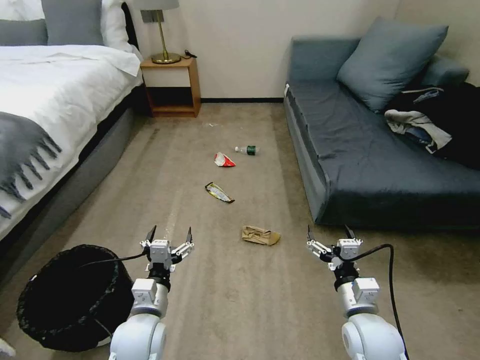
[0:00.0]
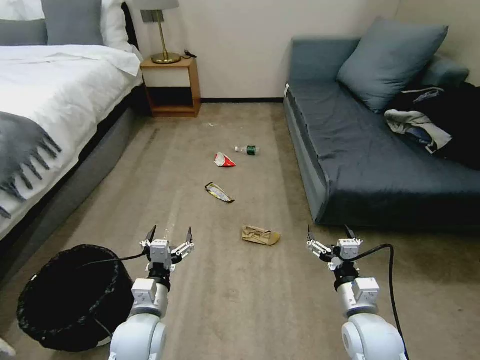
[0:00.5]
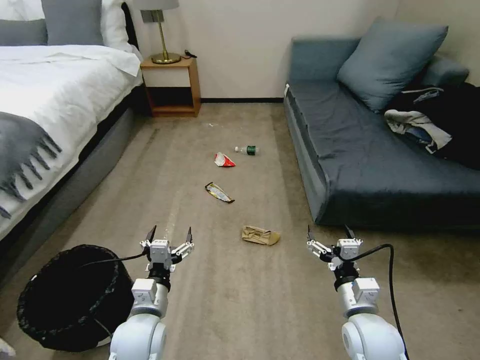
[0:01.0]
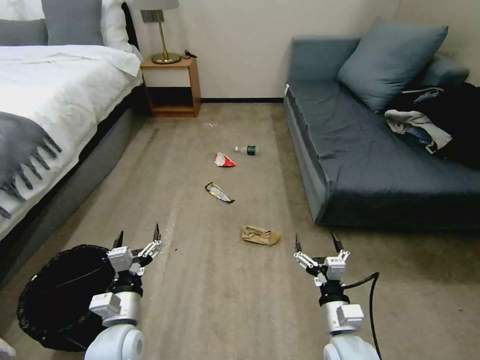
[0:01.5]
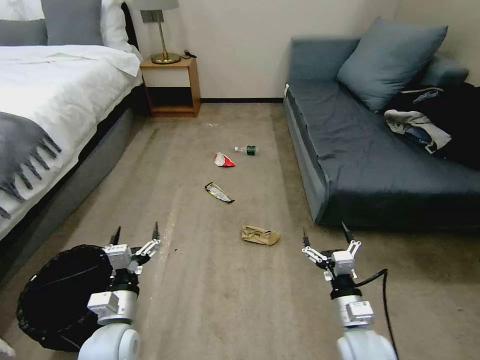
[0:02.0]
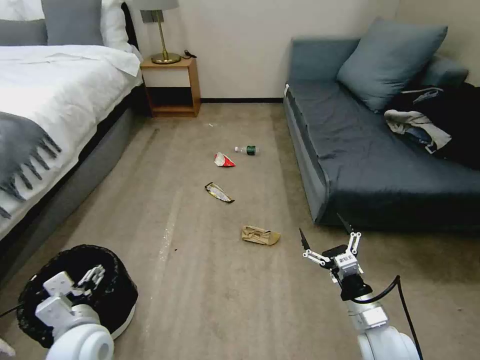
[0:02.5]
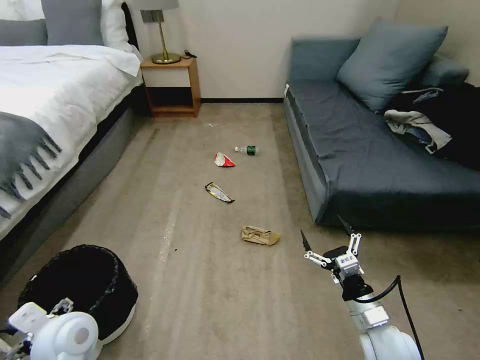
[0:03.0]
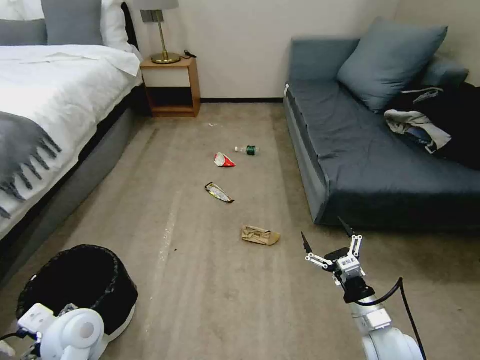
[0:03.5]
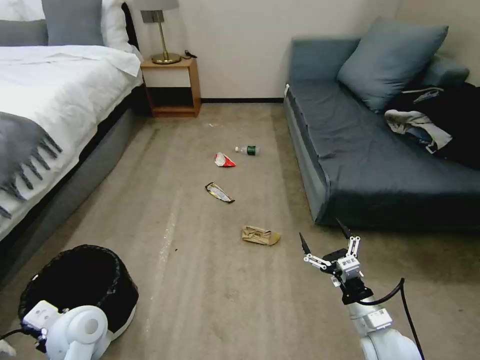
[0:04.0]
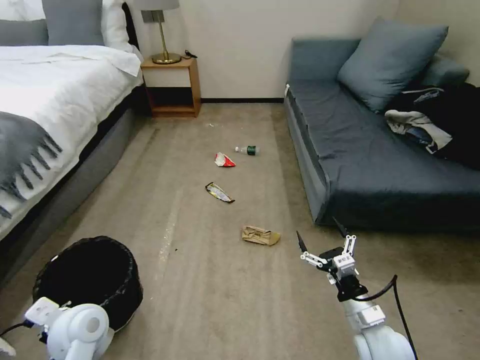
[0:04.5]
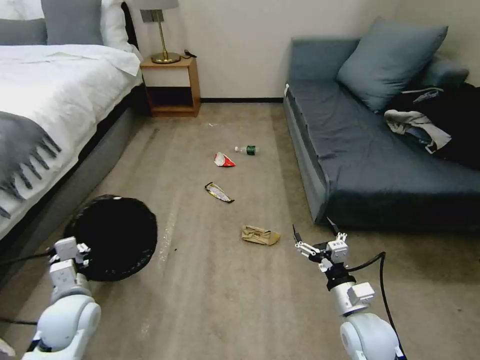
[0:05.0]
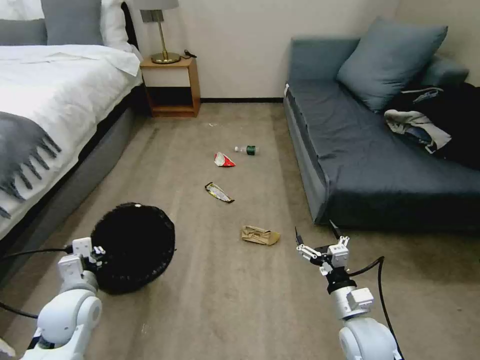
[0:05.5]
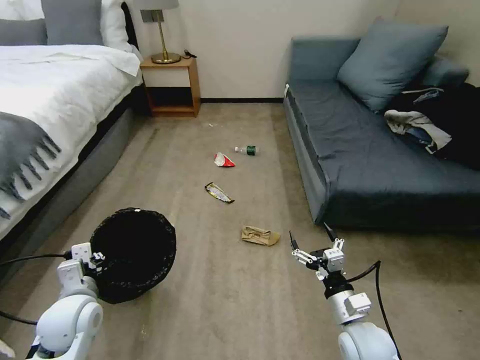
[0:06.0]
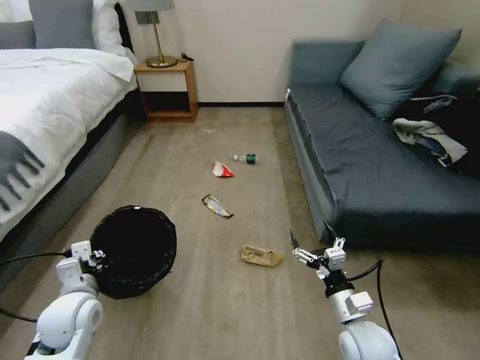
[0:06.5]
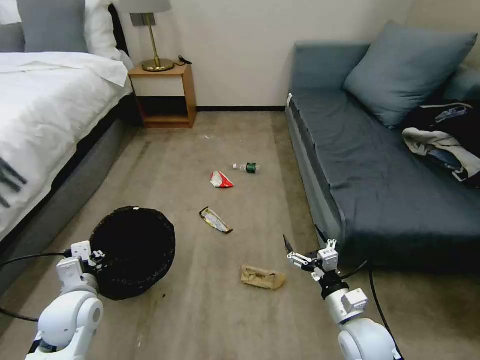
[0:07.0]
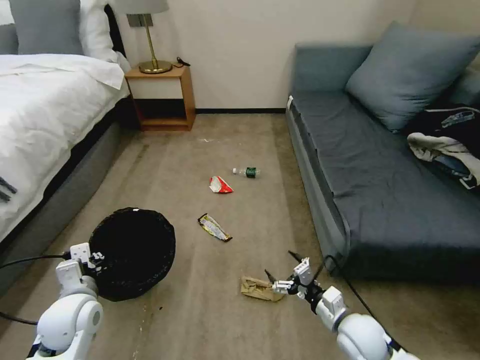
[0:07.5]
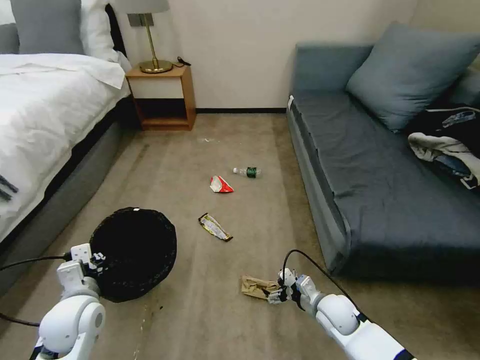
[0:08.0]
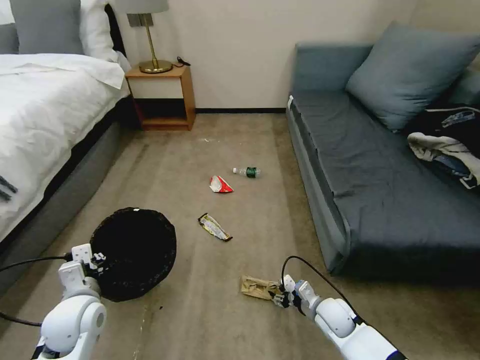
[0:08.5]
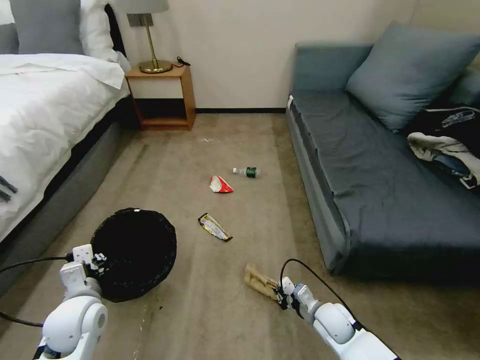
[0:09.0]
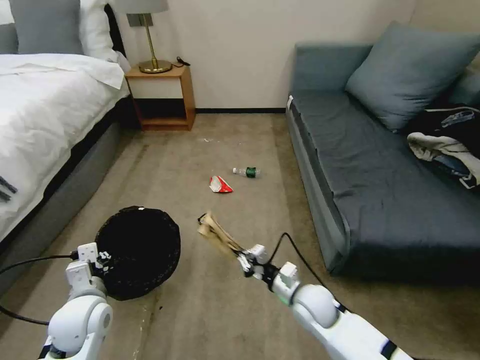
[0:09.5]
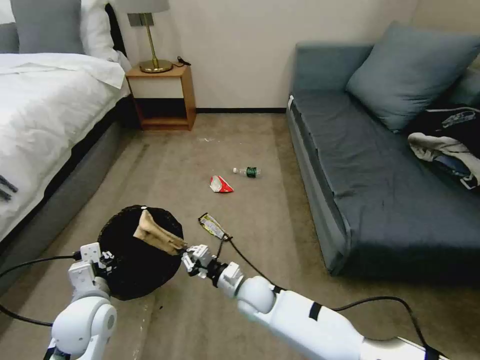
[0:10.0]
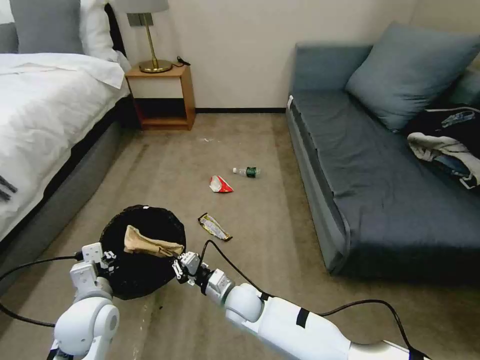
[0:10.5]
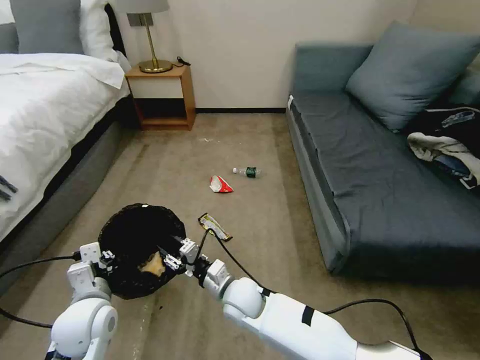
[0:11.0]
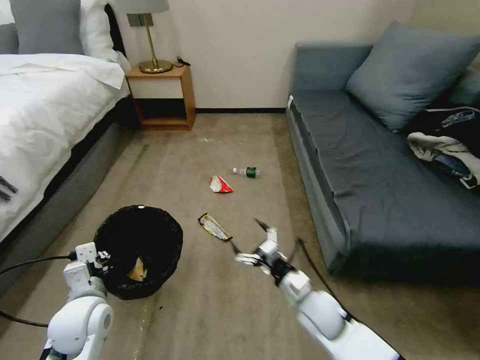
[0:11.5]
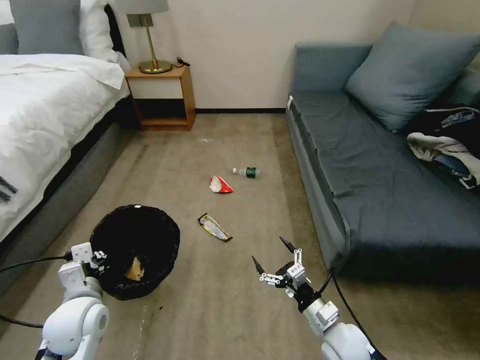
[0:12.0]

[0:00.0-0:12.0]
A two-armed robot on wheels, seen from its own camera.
Task of the whole recording: Pick up the trash bin, then pick up the garbage on the floor and place it into the trash bin.
0:02.0 to 0:04.0: The left gripper heads to the left, covering roughly 5 cm, and closes.
0:04.0 to 0:06.0: The left gripper closes its fingers.
0:06.0 to 0:08.0: The right gripper is displaced downward and forward by about 10 cm.
0:08.0 to 0:10.0: The right gripper moves to the left, roughly 20 cm, and closes its fingers.
0:10.0 to 0:12.0: The right gripper heads to the right and backward, covering approximately 20 cm, and opens its fingers.

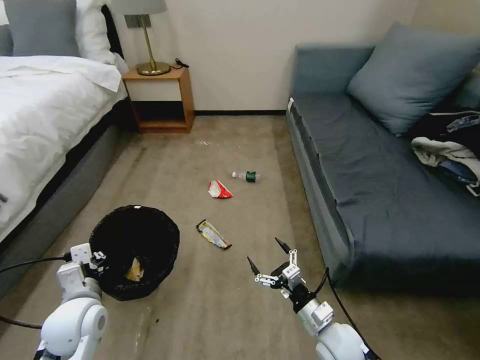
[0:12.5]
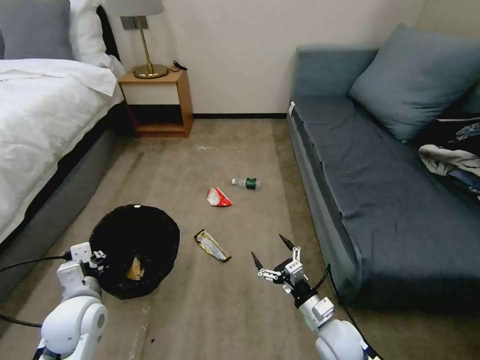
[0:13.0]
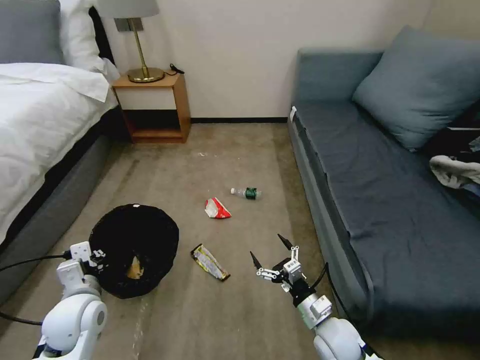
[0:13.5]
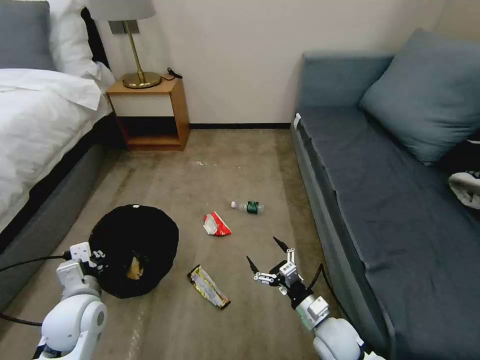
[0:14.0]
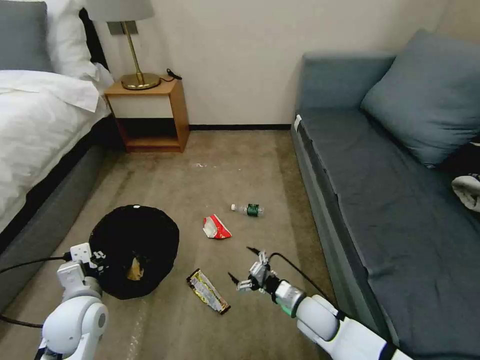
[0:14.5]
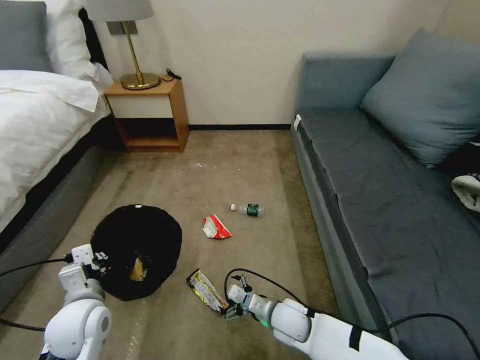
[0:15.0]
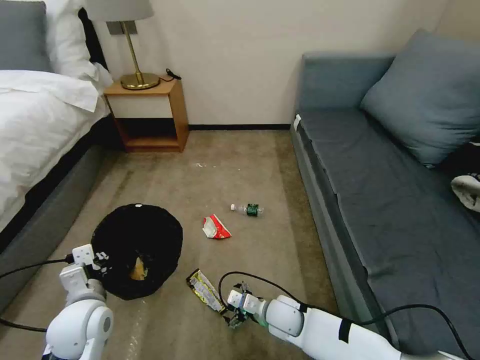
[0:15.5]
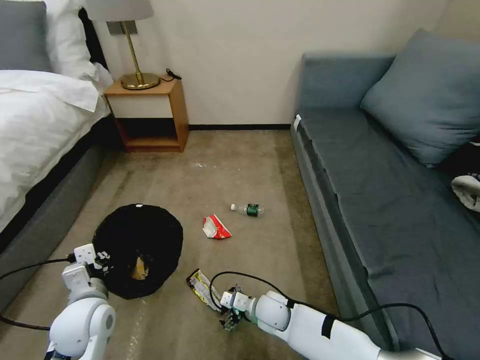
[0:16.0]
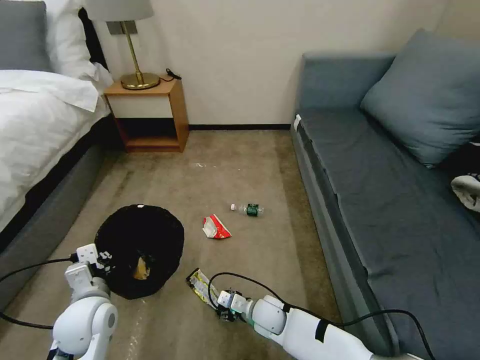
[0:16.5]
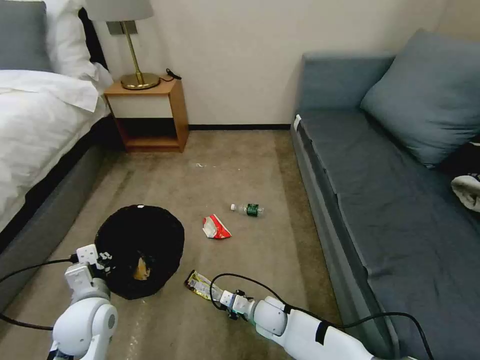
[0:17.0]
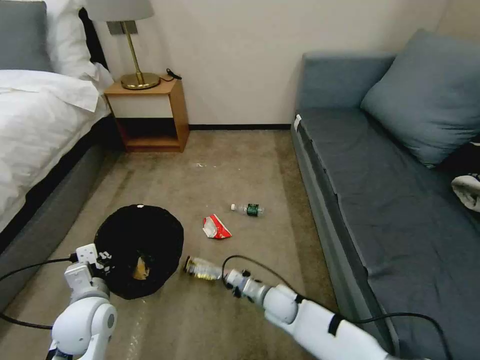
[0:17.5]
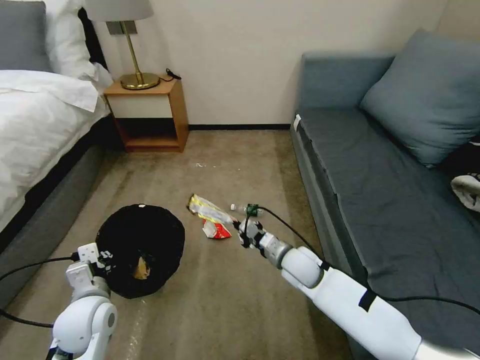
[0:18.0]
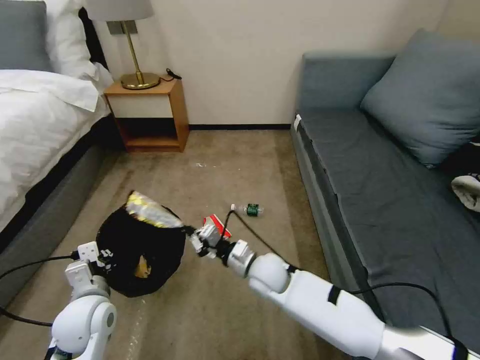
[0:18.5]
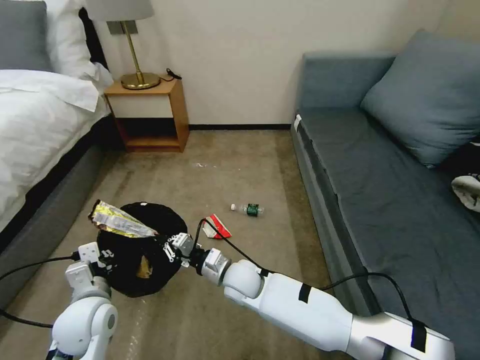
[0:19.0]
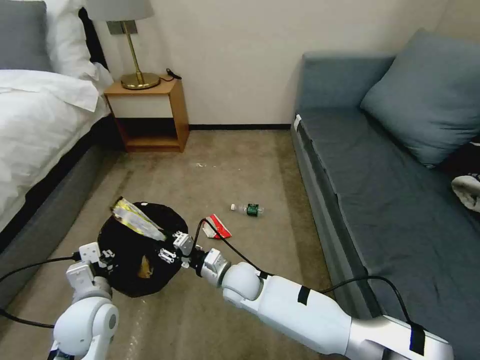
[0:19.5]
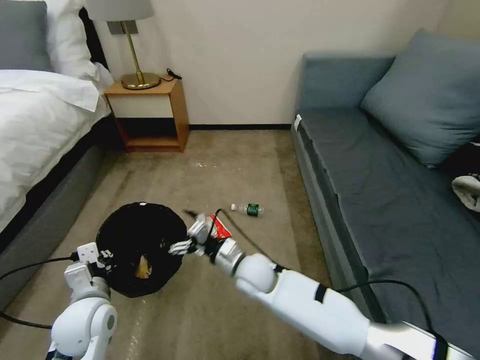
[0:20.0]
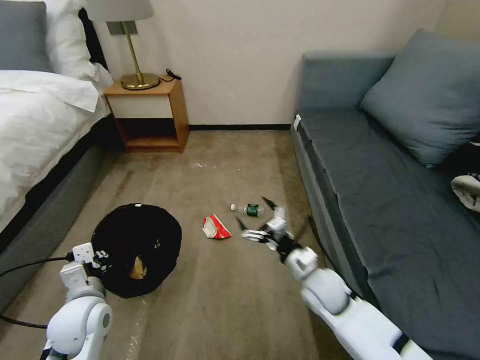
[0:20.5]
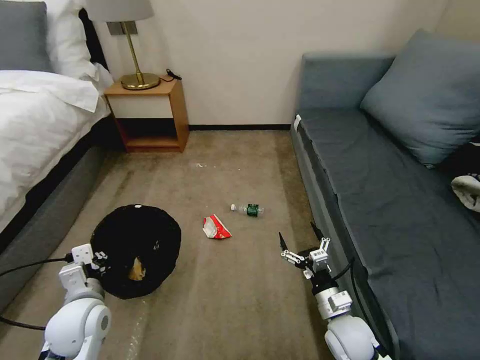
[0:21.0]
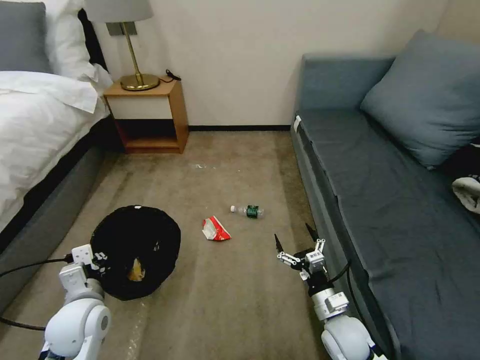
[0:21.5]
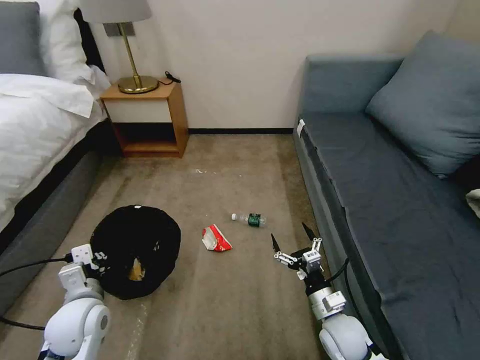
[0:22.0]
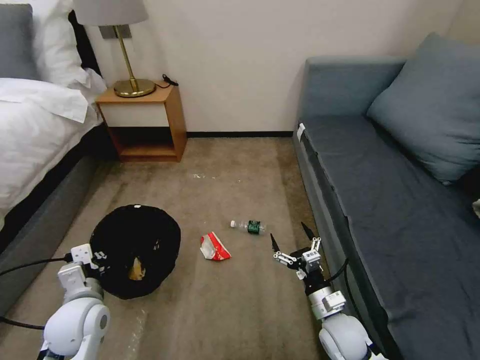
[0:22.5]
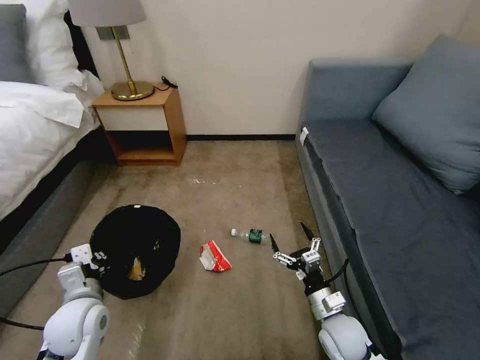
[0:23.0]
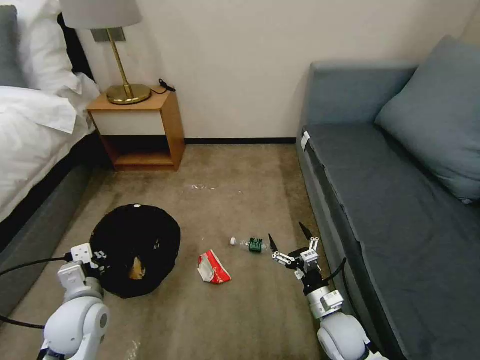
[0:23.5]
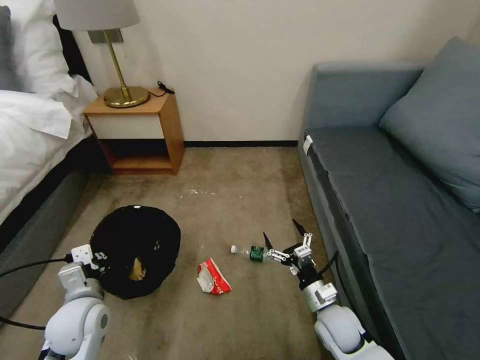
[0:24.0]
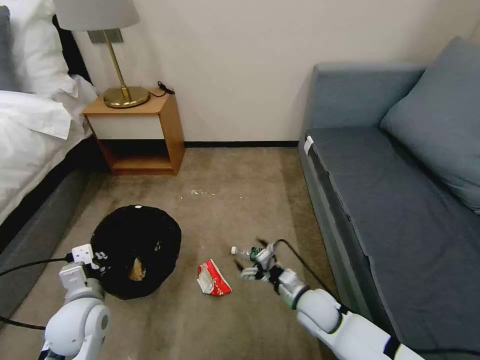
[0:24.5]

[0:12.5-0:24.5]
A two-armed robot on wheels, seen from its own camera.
Task of the whole recording: Pick up the trash bin, then pick up the garbage on the floor and place it into the trash bin.
0:12.5 to 0:14.5: The right gripper travels forward by some 5 cm.
0:14.5 to 0:16.5: The right gripper travels to the left and downward by some 15 cm, and closes up.
0:16.5 to 0:18.5: The right gripper goes roughly 15 cm upward and forward, and closes up.
0:18.5 to 0:20.5: The right gripper shifts about 15 cm to the right, and opens its fingers.
0:20.5 to 0:22.5: The right gripper goes about 10 cm backward and downward.
0:22.5 to 0:24.5: The right gripper shifts approximately 5 cm forward.

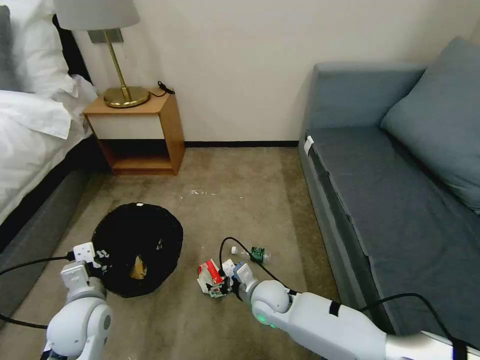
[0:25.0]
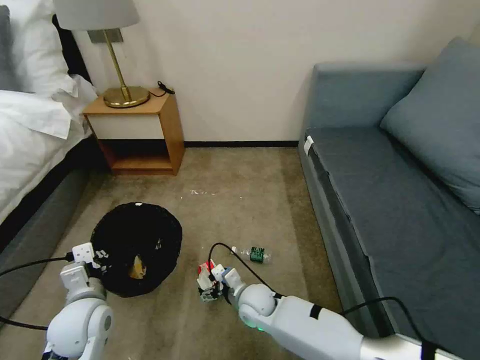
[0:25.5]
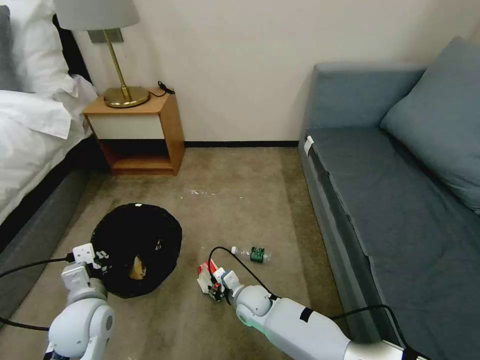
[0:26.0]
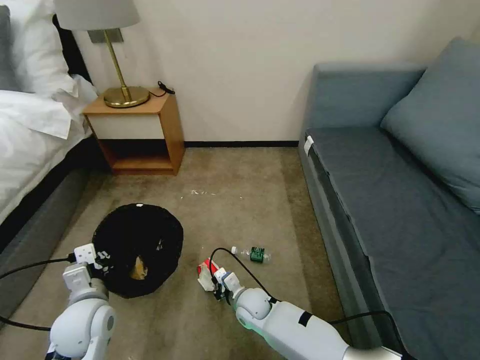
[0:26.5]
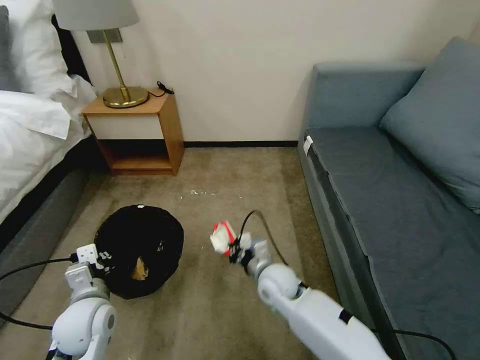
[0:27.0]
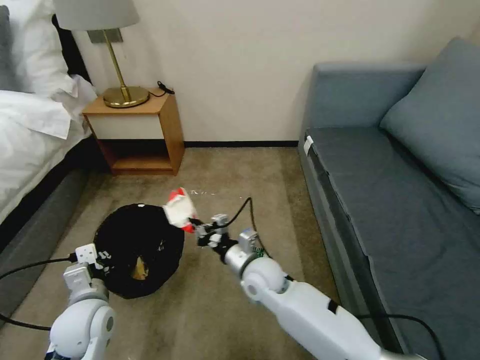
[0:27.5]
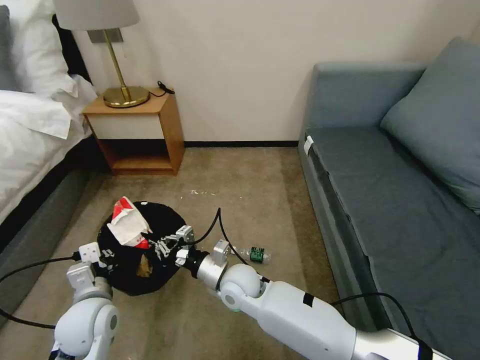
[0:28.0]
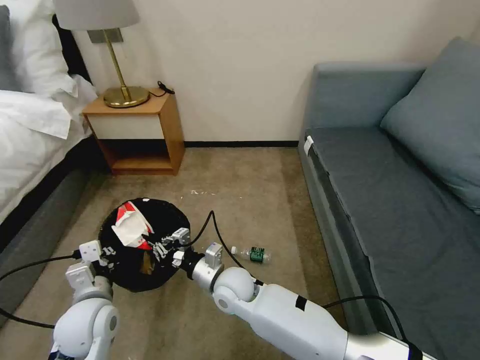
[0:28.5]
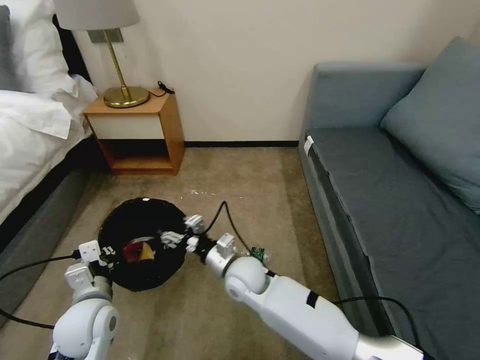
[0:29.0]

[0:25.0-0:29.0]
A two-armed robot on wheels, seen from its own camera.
Task of the whole recording: Pick up the trash bin, then pick up the garbage on the floor and place it into the trash bin.
0:25.0 to 0:27.0: The right gripper moves about 5 cm, and closes up.
0:27.0 to 0:29.0: The right gripper heads to the left, covering approximately 10 cm, and opens.
